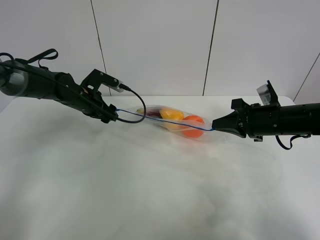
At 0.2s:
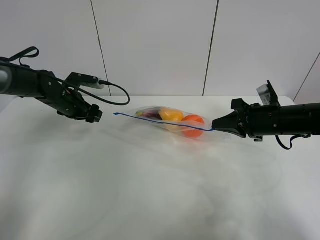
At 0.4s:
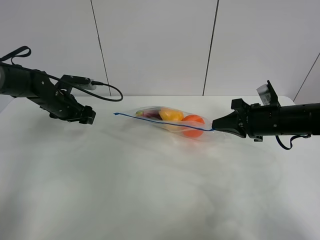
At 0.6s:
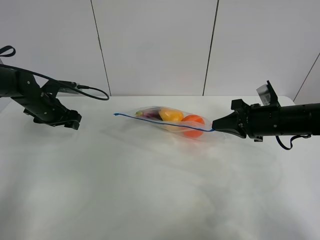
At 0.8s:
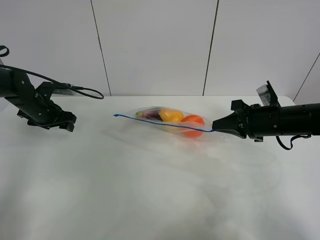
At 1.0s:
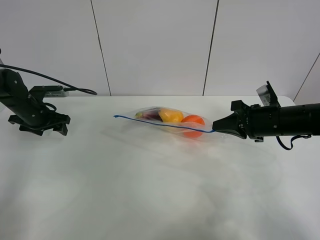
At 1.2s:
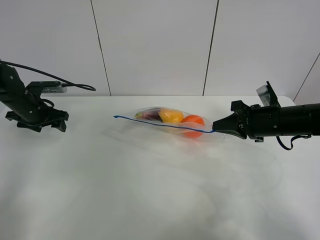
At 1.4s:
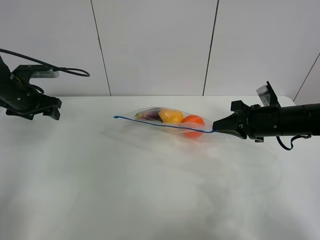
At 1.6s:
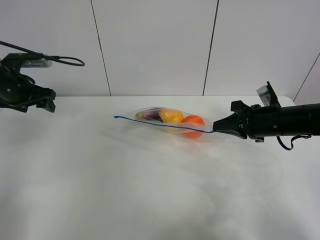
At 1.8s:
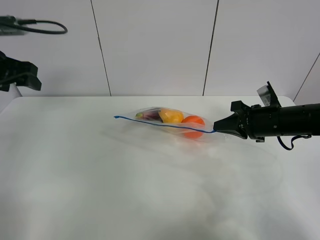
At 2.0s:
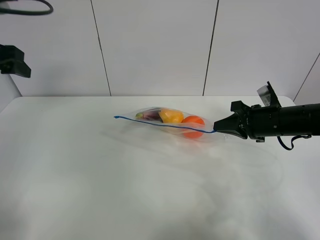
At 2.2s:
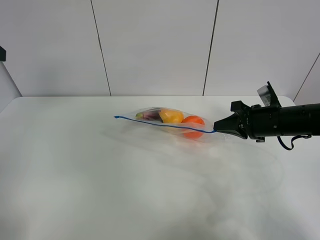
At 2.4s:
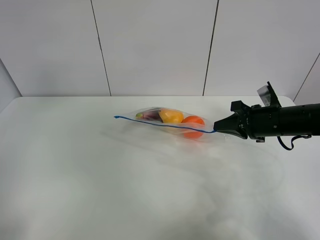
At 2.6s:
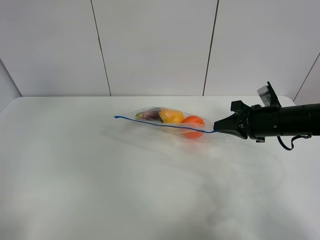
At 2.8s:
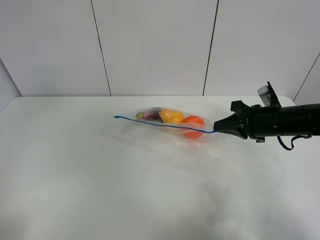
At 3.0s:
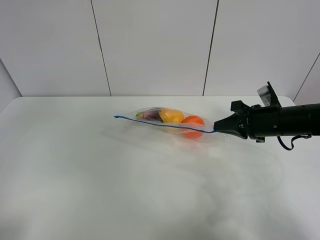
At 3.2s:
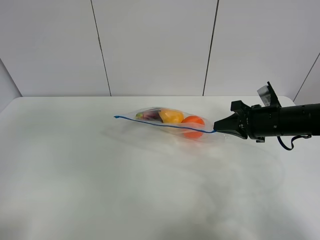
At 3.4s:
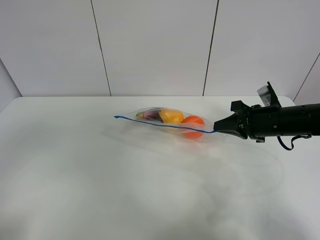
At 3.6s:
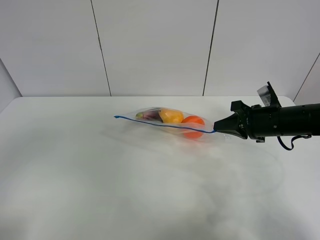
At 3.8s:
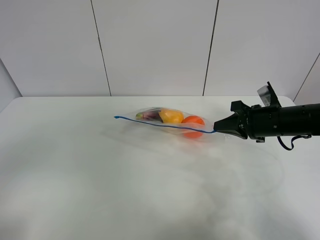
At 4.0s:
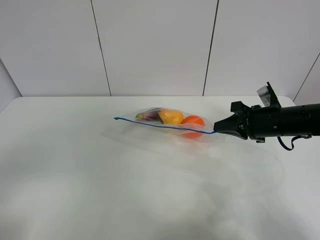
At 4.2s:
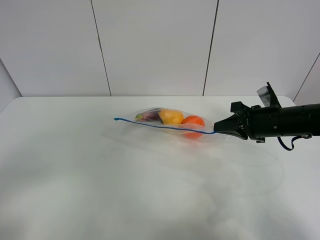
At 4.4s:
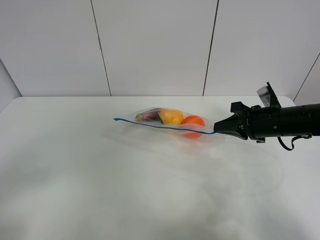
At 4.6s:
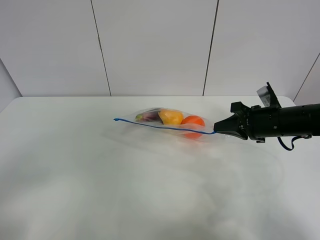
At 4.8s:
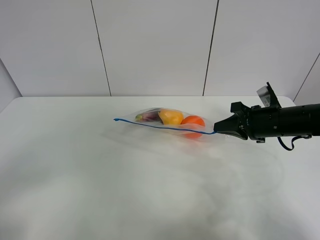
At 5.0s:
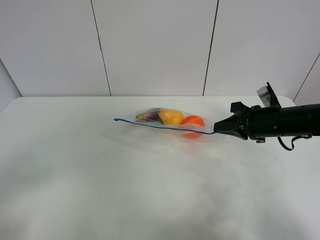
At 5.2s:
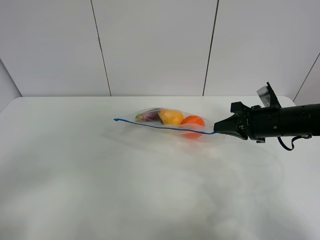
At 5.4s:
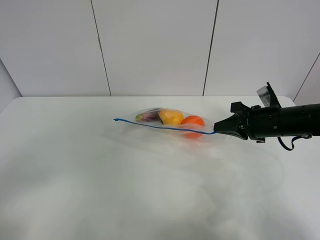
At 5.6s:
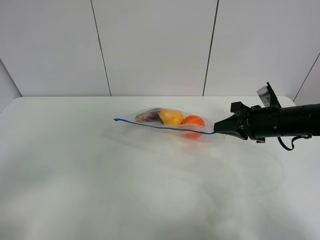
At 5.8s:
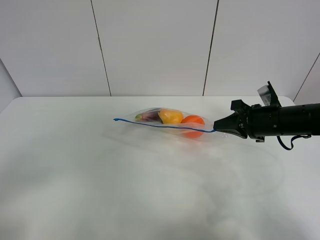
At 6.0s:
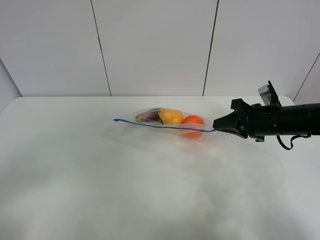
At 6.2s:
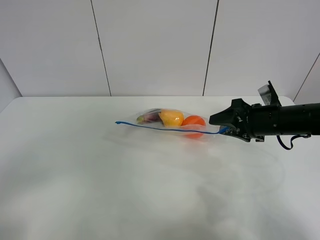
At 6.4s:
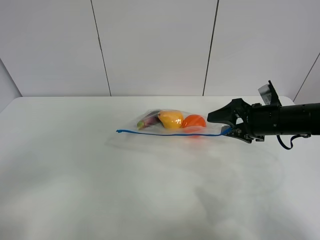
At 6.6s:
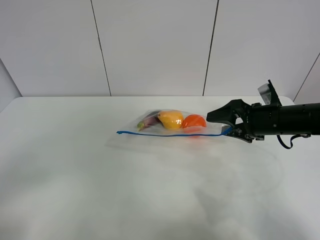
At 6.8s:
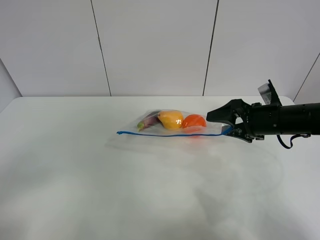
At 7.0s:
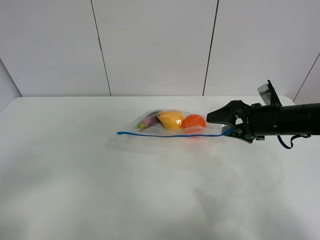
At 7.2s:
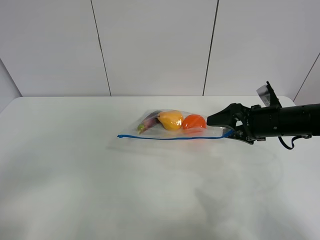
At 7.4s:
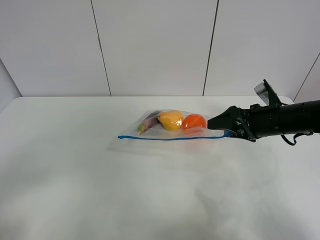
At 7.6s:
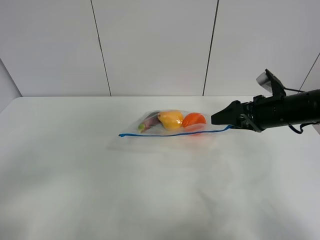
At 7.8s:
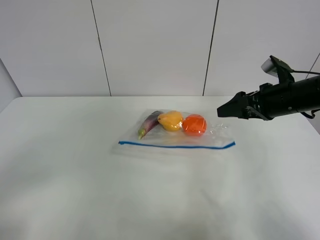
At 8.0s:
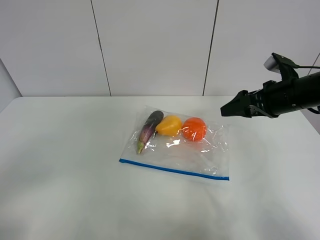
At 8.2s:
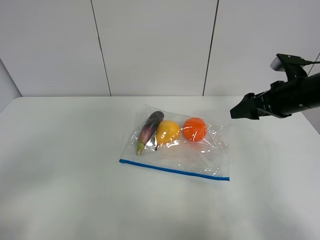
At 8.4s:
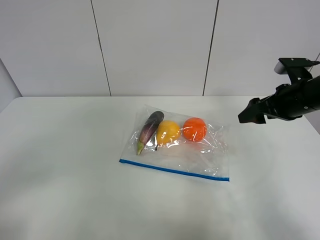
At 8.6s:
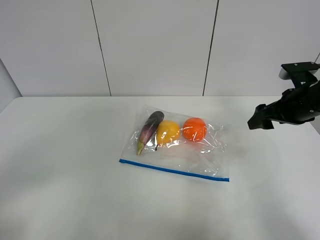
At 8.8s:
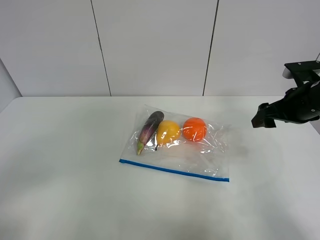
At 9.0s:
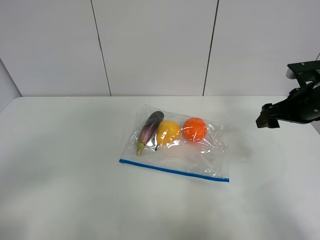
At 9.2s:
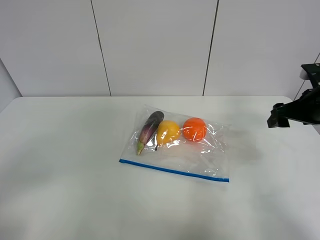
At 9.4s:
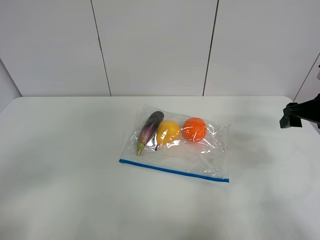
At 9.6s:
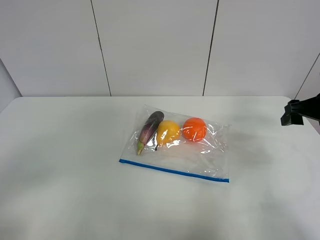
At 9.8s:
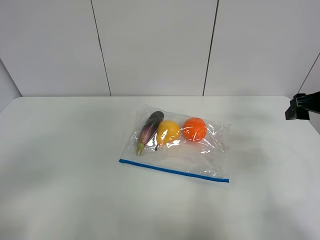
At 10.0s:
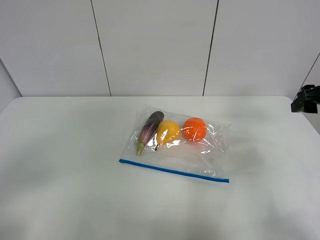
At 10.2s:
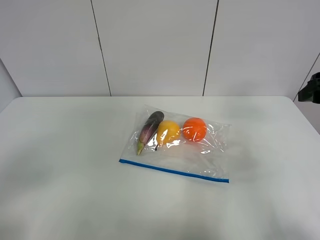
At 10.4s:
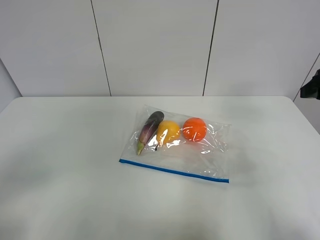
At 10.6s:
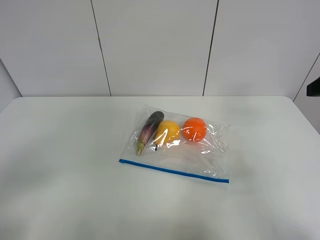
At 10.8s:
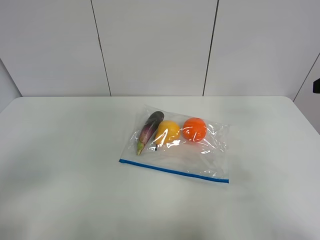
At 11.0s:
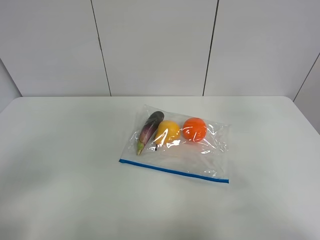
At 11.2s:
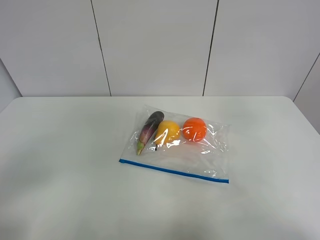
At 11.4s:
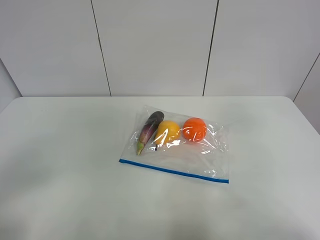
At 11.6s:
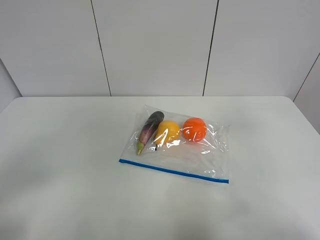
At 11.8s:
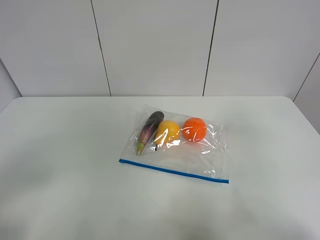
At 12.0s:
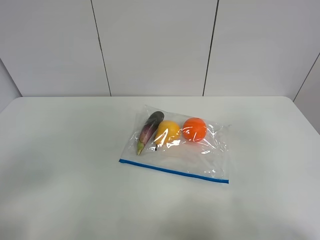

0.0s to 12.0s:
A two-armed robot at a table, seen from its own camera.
0.0s to 1.6s: The left gripper moves to the left, upward and backward, about 15 cm.
1.6s to 3.0s: The left gripper travels backward and upward by about 35 cm.
3.0s to 4.4s: The left gripper shifts some 20 cm downward and backward.
4.4s to 6.0s: Neither gripper changes place.
6.0s to 7.6s: The right gripper opens its fingers.
7.6s to 9.0s: The right gripper moves to the right, some 5 cm.
9.0s to 10.4s: The right gripper moves upward and backward, some 10 cm.
10.4s to 12.0s: The right gripper goes some 15 cm backward.

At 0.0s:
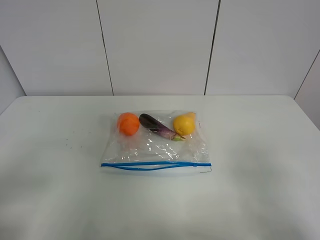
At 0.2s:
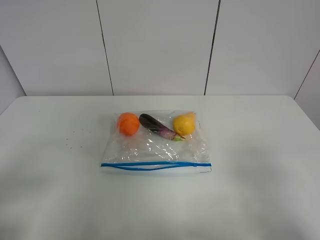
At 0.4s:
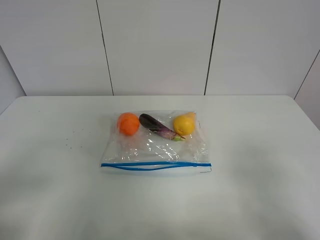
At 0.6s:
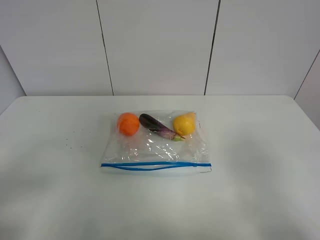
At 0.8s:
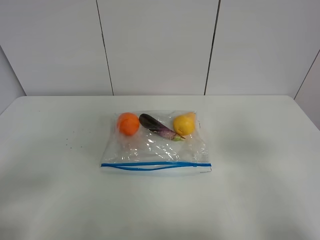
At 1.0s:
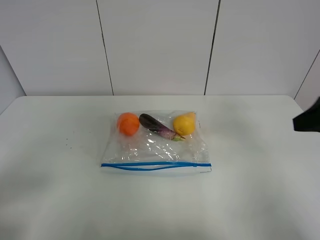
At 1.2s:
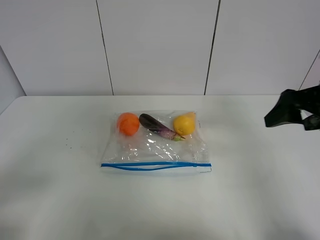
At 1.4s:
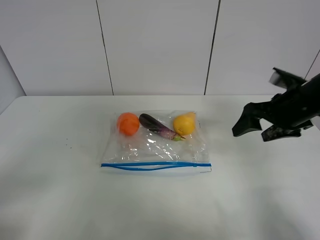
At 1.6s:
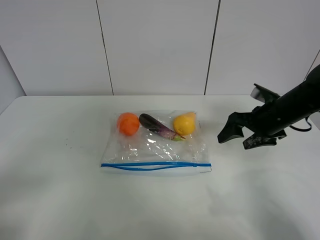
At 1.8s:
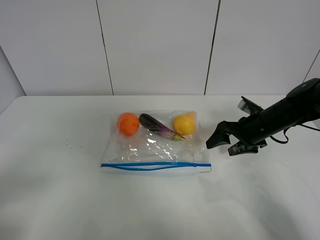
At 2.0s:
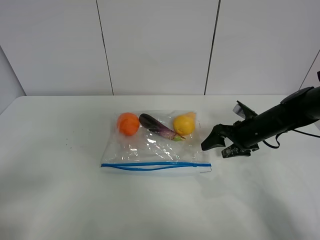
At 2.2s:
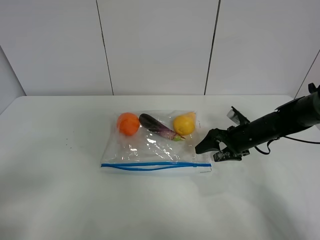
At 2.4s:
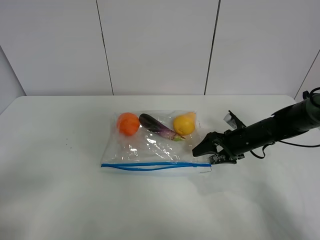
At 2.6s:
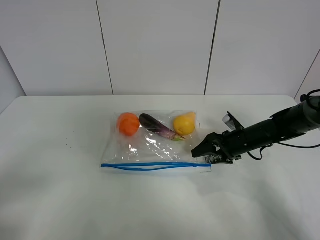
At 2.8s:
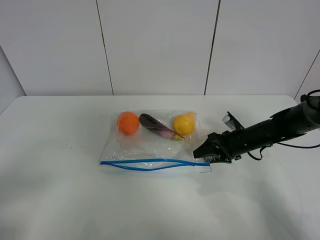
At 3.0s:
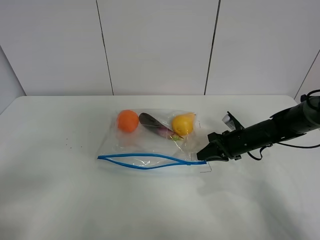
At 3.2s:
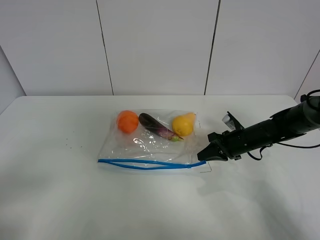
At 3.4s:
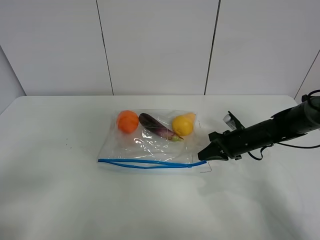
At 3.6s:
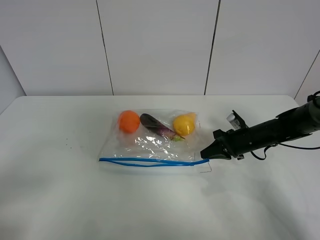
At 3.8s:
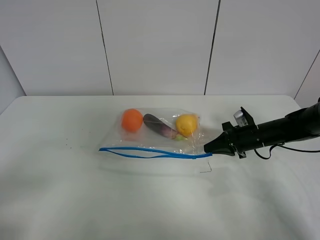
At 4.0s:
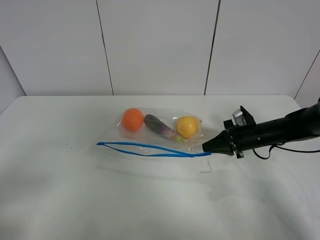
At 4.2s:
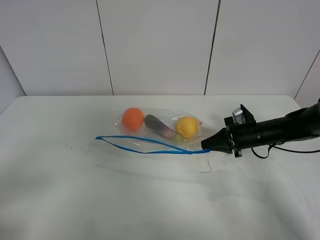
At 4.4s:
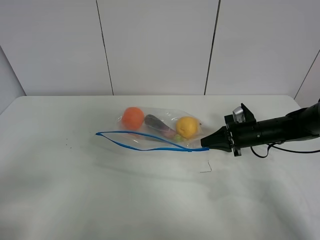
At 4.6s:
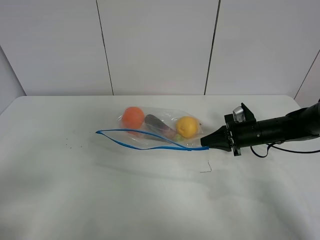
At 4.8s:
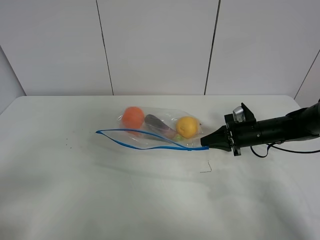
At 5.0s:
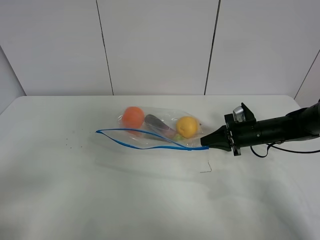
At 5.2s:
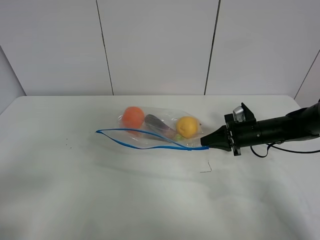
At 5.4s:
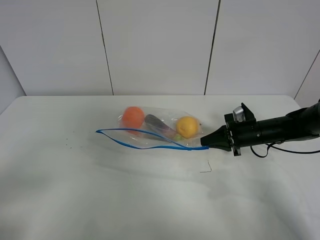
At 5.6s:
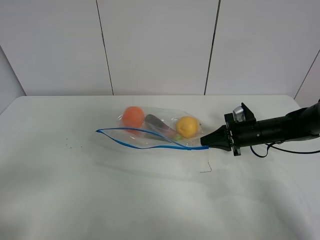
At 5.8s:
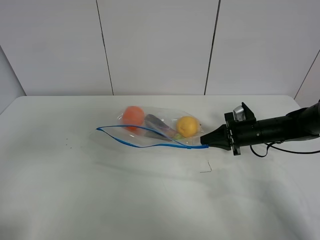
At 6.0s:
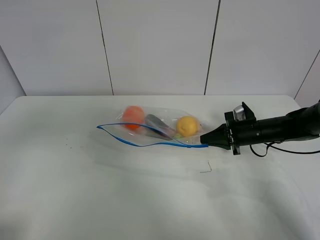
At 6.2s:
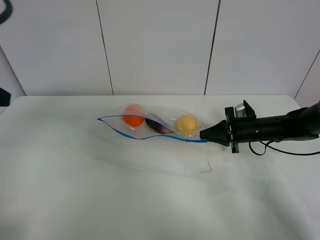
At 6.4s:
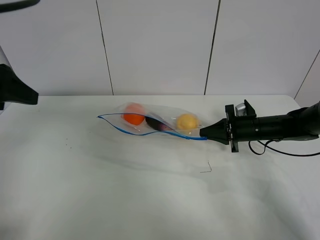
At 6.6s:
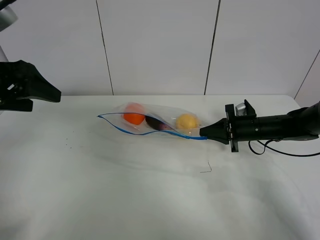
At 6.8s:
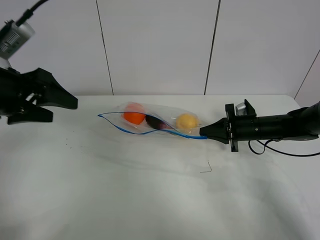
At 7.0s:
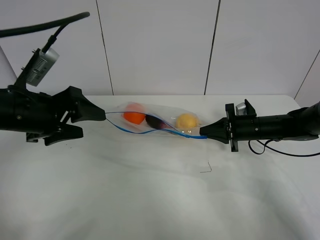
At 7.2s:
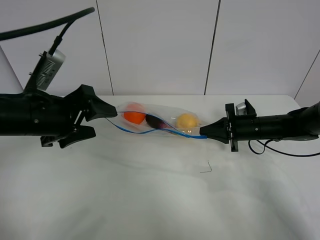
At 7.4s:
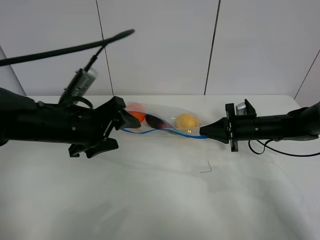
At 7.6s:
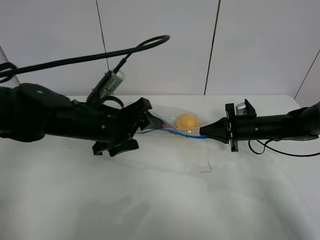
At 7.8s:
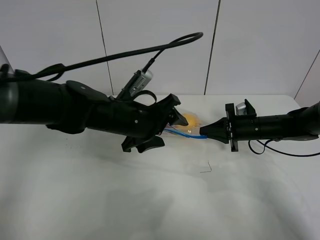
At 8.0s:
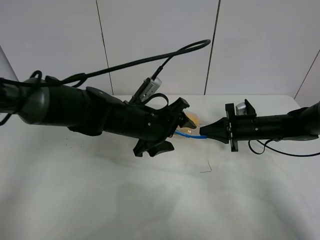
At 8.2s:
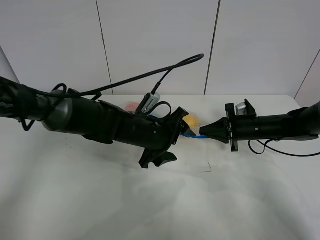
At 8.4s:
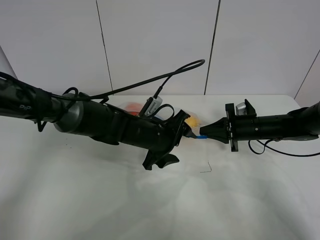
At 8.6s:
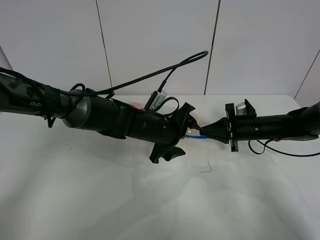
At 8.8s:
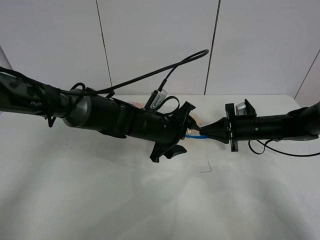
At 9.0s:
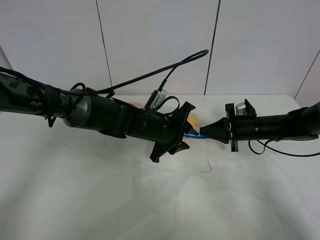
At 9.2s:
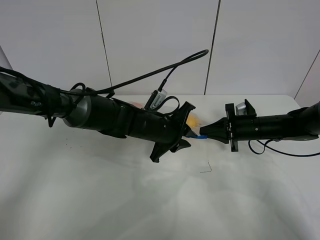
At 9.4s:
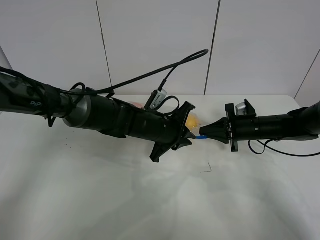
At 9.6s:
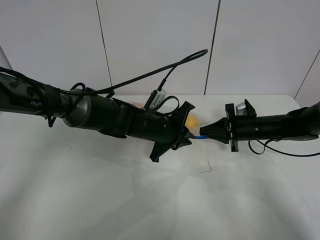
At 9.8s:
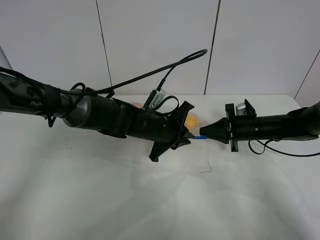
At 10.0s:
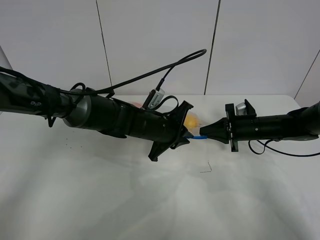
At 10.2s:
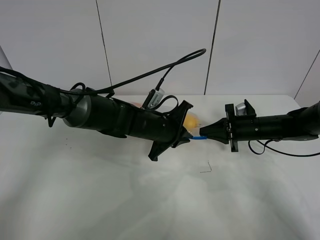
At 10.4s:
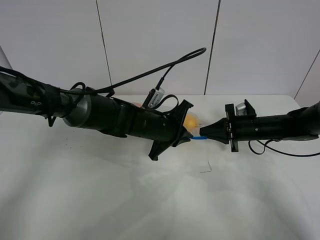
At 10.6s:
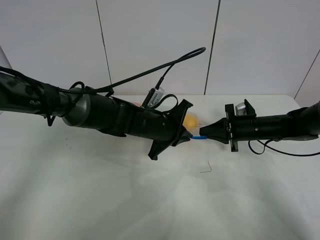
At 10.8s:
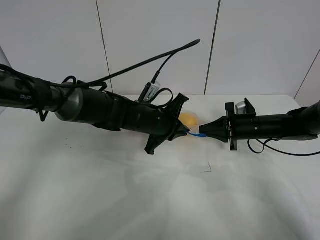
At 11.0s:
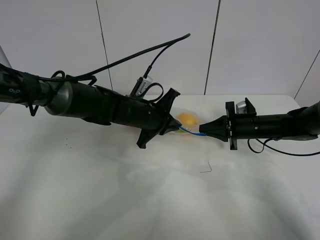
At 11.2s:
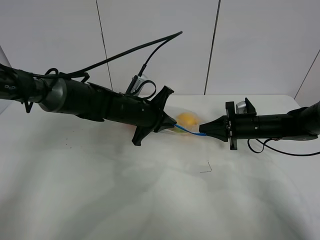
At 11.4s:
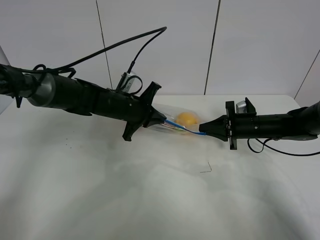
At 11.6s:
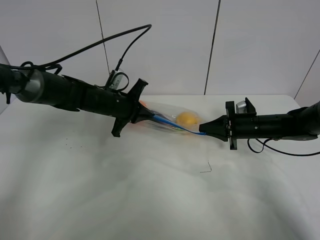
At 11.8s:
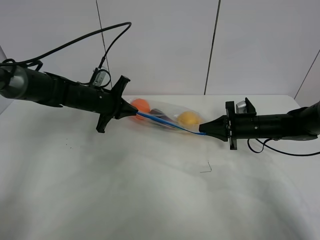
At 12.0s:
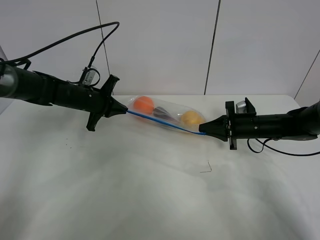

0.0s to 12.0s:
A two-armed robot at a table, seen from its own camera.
Step, 0.0s to 3.2s: Grasp the fruit bag with right gripper.
0.0s to 1.6s: The right gripper is displaced forward by some 30 cm.
1.6s to 3.0s: The right gripper travels downward by some 10 cm, and closes its fingers.
3.0s to 4.4s: The grippers stay close to where they were, moving slightly.
4.4s to 6.0s: The left gripper heads upward and forward, covering about 15 cm.
6.0s to 7.6s: The left gripper goes some 30 cm to the right, downward and forward.
7.6s to 9.0s: The left gripper travels to the right, downward and forward by roughly 15 cm, and closes up.
9.0s to 10.4s: The left gripper closes its fingers.
10.4s to 12.0s: The left gripper is displaced to the left and forward by about 20 cm.
